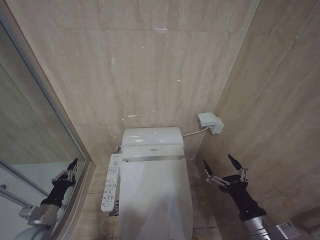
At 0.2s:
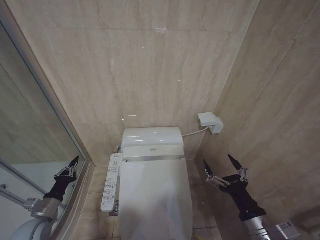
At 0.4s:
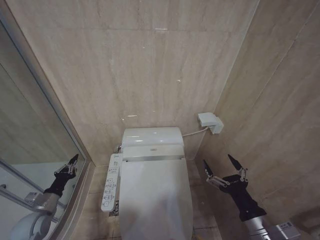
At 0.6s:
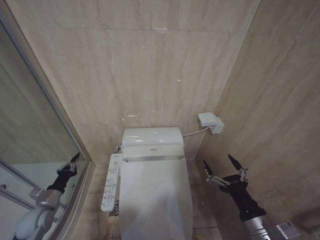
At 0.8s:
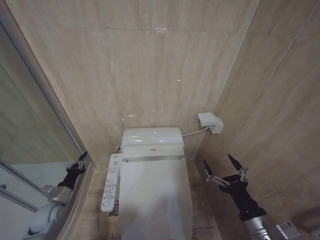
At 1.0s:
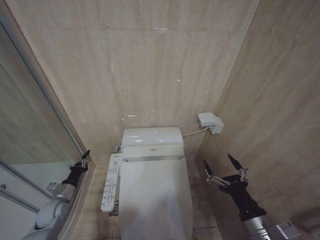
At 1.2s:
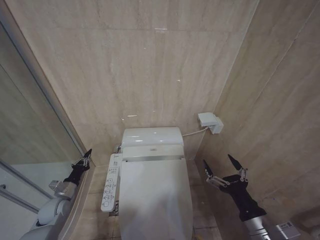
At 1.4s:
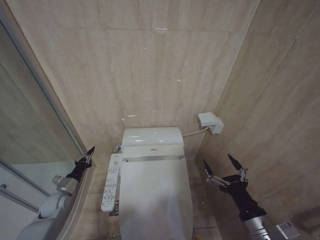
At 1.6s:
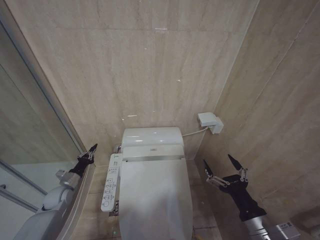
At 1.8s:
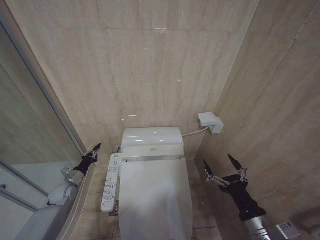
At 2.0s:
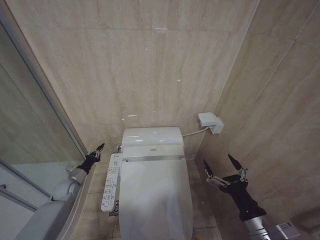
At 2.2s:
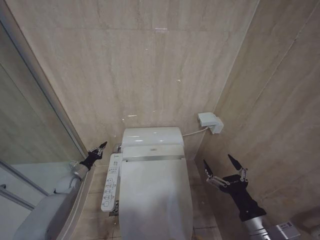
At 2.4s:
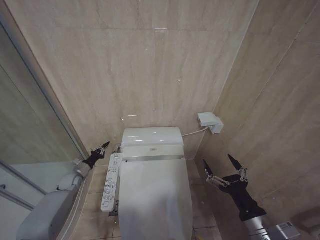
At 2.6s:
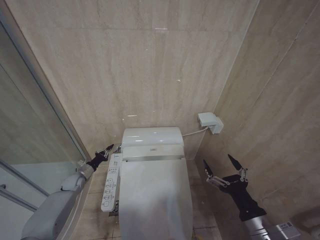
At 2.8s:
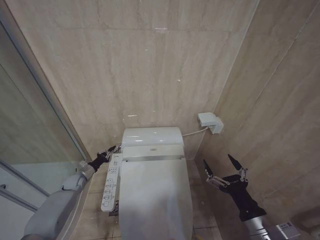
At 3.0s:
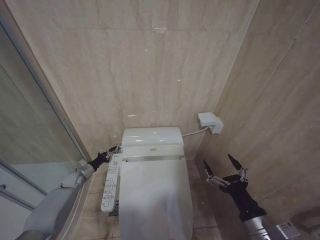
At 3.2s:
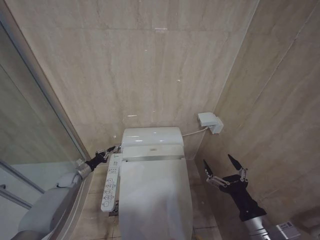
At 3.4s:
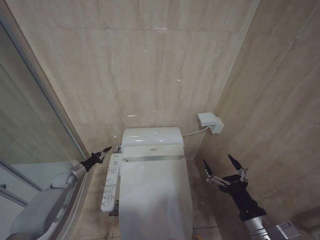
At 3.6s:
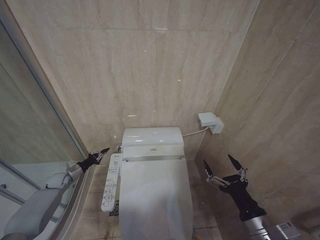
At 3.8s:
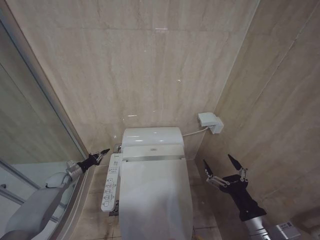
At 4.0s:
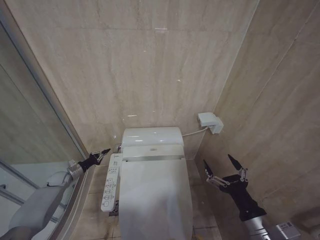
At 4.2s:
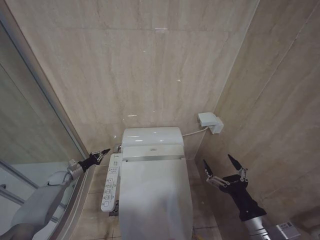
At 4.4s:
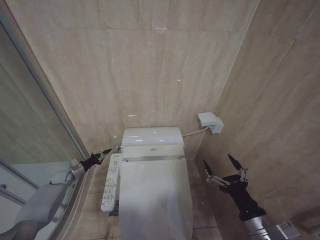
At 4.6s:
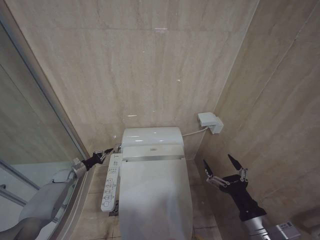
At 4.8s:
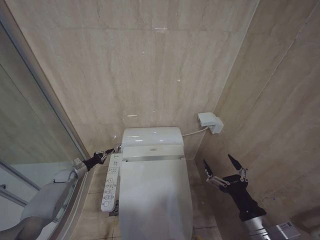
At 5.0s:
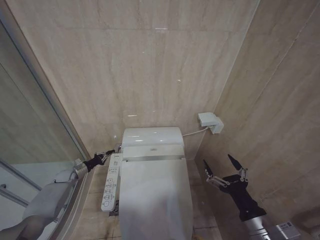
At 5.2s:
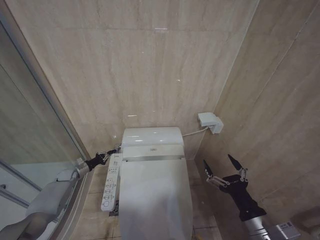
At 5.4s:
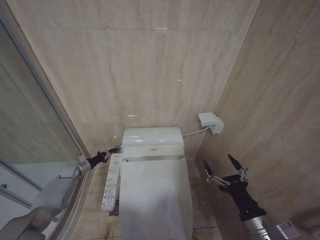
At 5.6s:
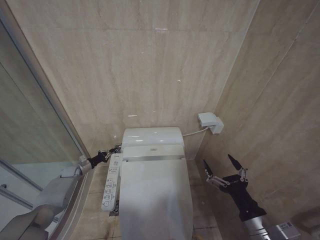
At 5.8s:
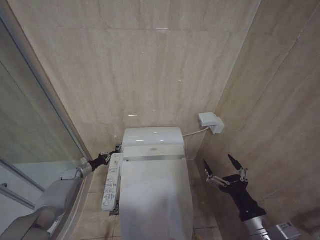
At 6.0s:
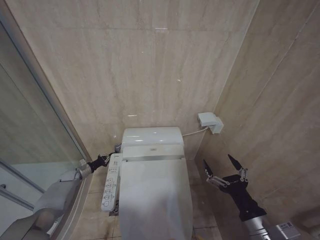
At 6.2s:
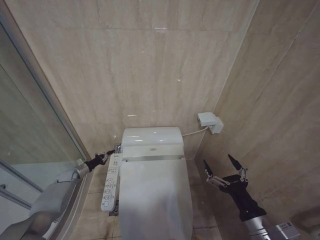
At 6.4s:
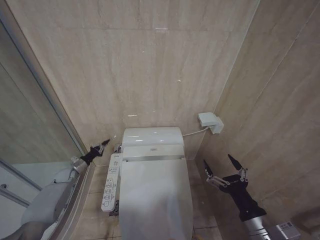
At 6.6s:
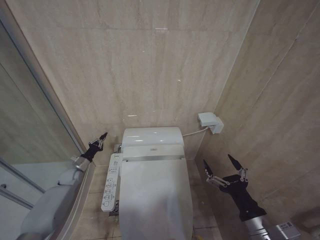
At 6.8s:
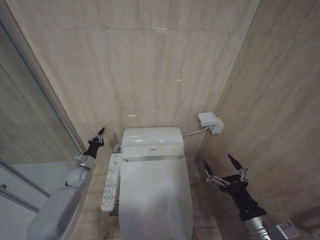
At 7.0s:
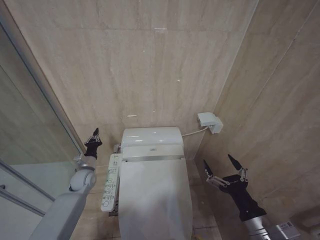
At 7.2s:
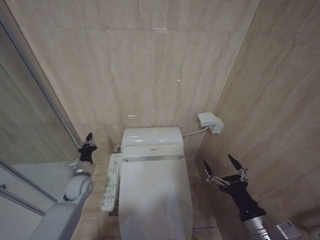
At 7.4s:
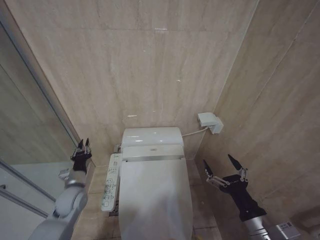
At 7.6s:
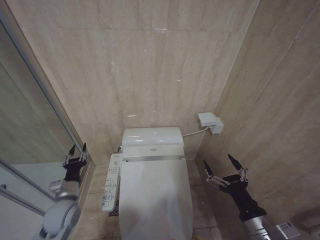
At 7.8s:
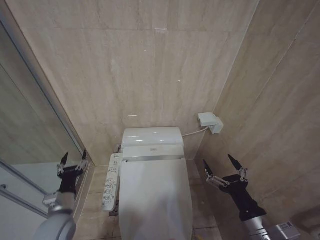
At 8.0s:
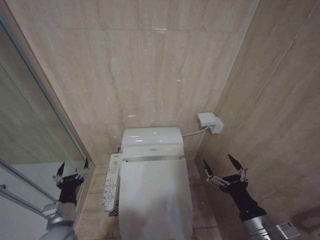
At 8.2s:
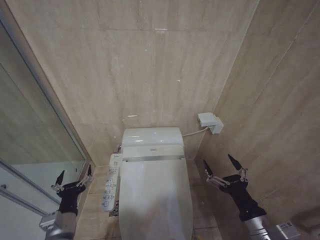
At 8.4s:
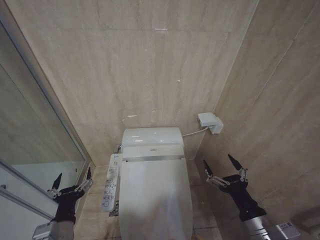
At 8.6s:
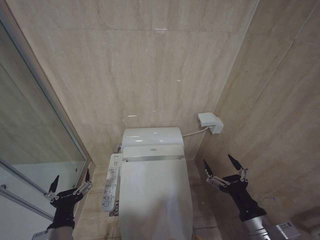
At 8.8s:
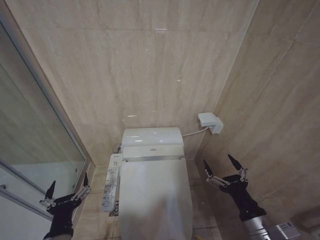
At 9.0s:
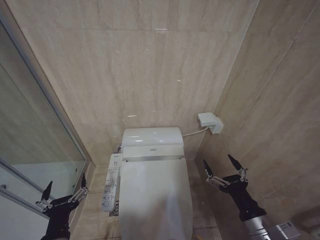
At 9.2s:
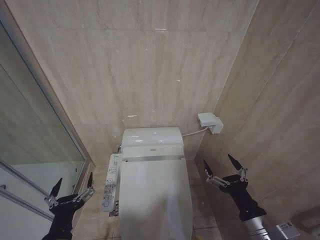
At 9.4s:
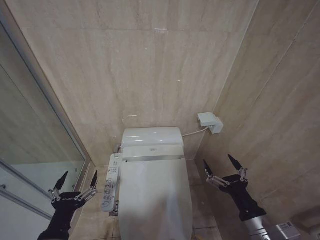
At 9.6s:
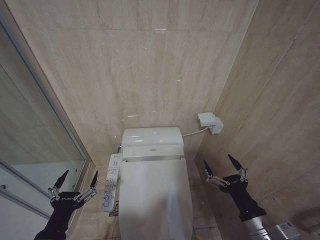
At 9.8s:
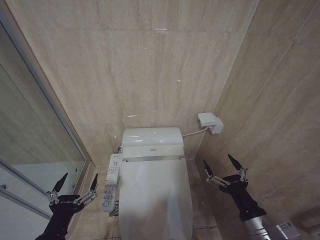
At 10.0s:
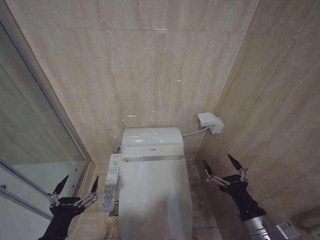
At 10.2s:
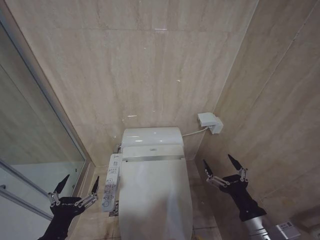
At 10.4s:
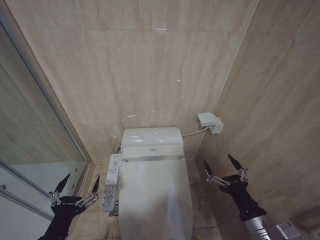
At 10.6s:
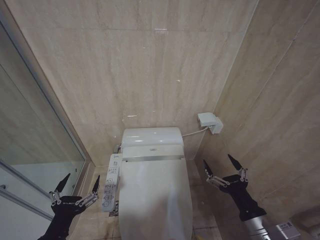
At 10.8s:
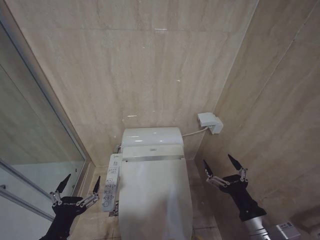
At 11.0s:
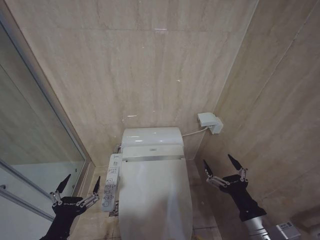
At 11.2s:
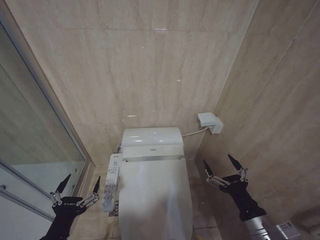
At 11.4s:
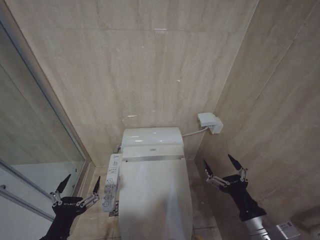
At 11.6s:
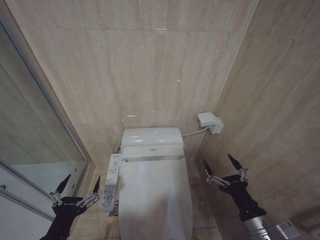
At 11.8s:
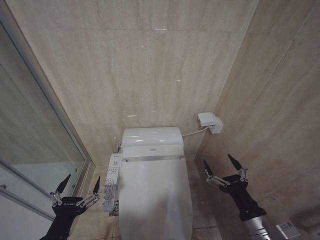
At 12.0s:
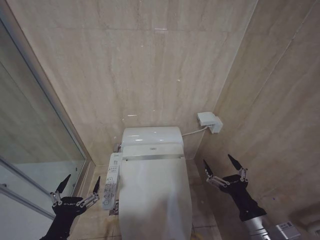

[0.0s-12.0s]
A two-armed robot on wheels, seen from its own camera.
Task of the whole recording: Open the toilet lid, clean the toilet bowl with a toilet brush, close the toilet lid, and flush.
0.0s to 1.6s: The left gripper travels forward by some 15 cm.
1.6s to 3.0s: The left gripper shifts some 10 cm forward.
3.0s to 4.4s: The left gripper moves to the left, roughly 5 cm.
4.4s to 6.0s: The grippers move only a little.
6.0s to 7.6s: The left gripper travels backward, to the right and upward by approximately 25 cm.
7.6s to 9.0s: The left gripper travels backward by some 20 cm, and opens up.
9.0s to 10.4s: The left gripper ends up about 5 cm from where it was.
10.4s to 12.0s: Neither gripper changes place.

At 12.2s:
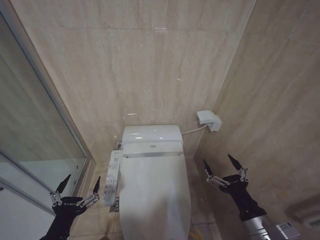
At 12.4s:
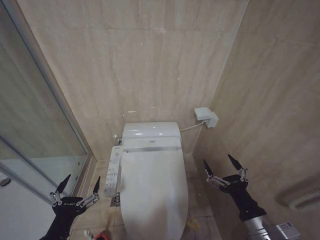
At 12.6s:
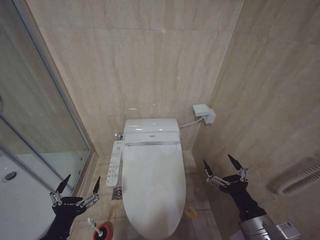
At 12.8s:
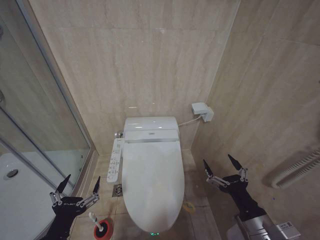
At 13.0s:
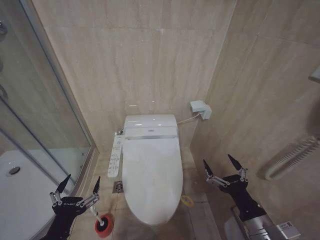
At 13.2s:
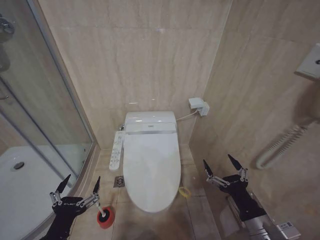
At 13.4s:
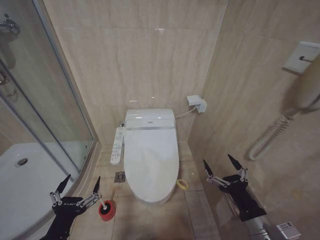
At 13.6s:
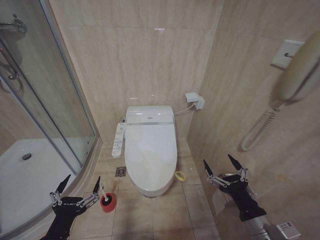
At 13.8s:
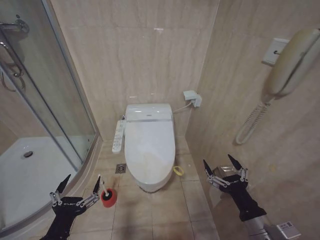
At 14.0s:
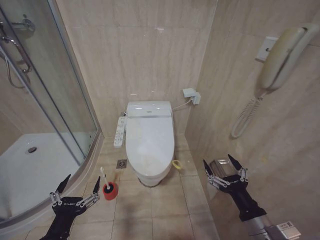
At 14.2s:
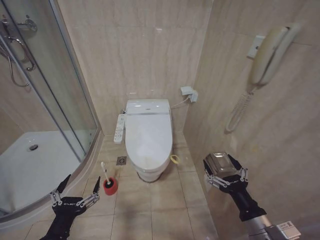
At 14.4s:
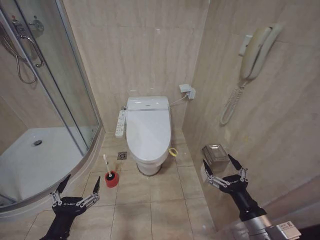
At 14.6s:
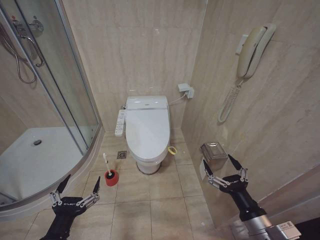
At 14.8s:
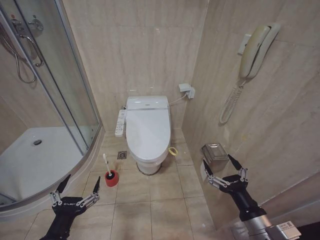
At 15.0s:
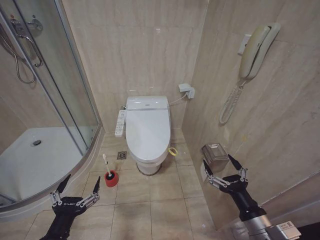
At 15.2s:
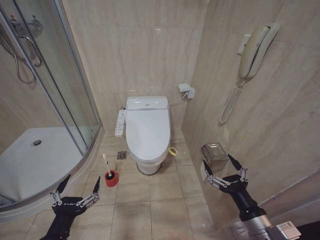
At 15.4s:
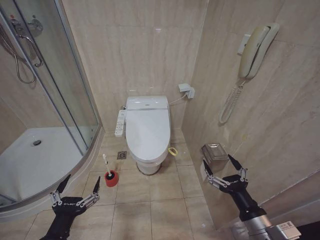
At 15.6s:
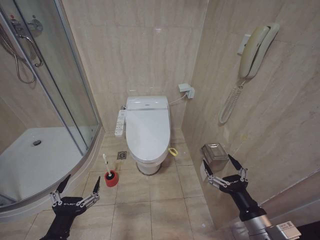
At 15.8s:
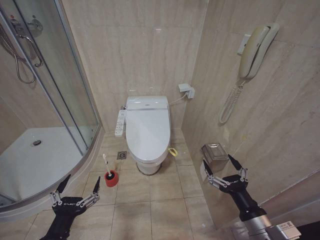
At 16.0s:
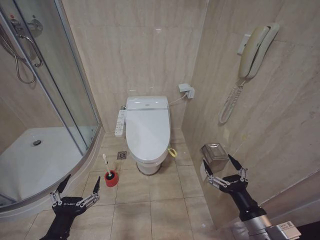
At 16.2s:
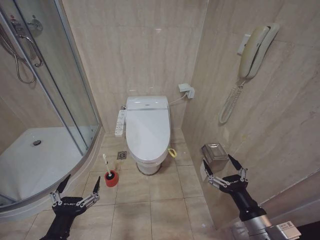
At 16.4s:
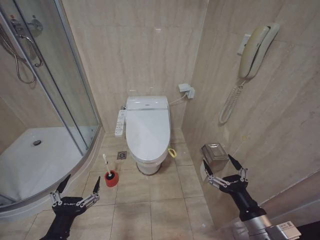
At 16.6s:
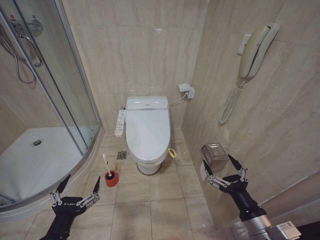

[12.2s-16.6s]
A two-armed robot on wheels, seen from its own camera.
Task of the whole recording: Open the toilet lid, clean the toilet bowl with a toilet brush, close the toilet lid, and flush.
15.2s to 16.6s: Neither gripper changes place.

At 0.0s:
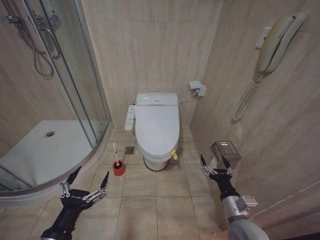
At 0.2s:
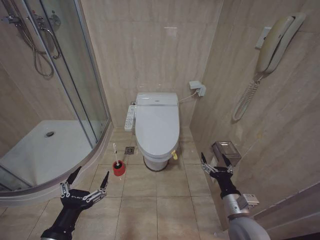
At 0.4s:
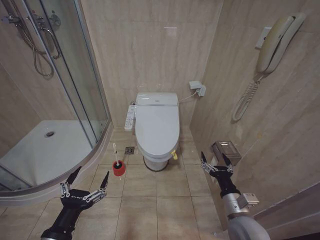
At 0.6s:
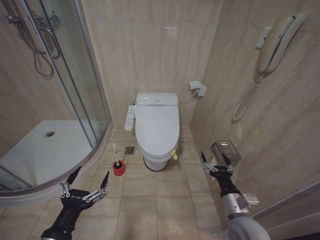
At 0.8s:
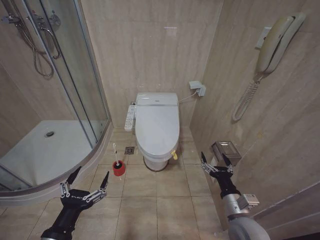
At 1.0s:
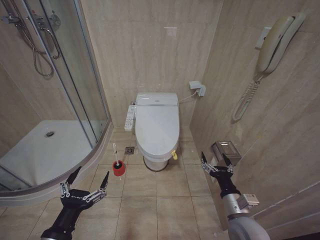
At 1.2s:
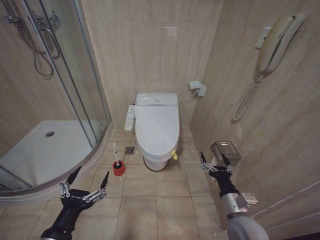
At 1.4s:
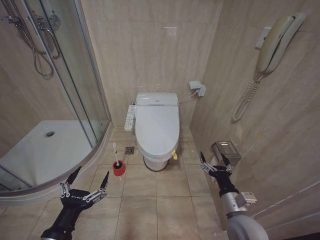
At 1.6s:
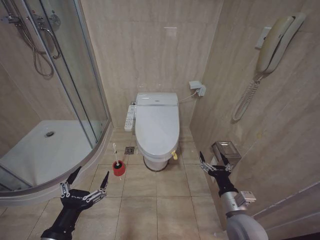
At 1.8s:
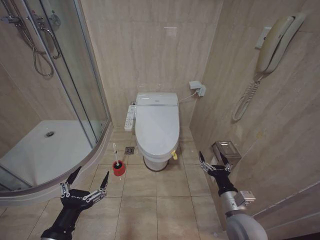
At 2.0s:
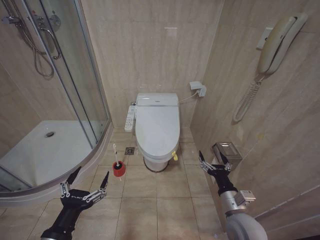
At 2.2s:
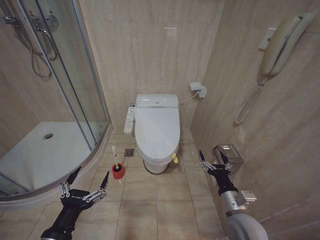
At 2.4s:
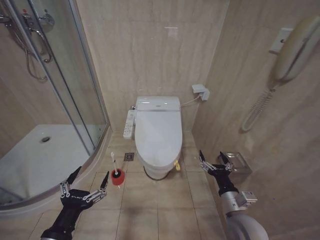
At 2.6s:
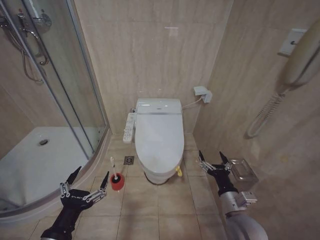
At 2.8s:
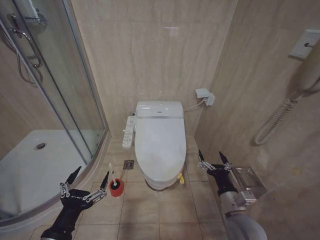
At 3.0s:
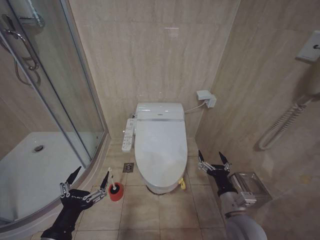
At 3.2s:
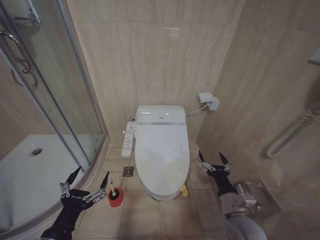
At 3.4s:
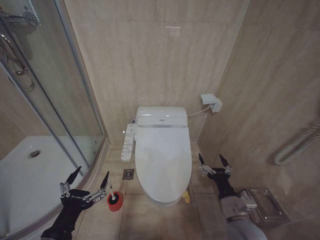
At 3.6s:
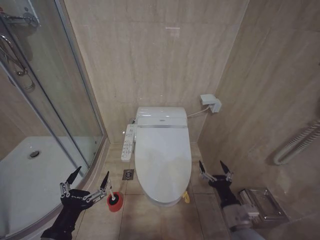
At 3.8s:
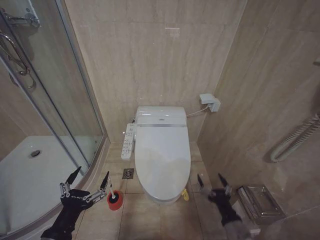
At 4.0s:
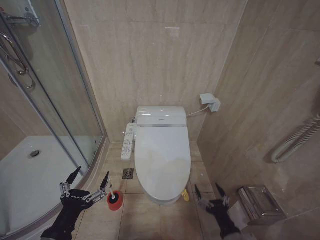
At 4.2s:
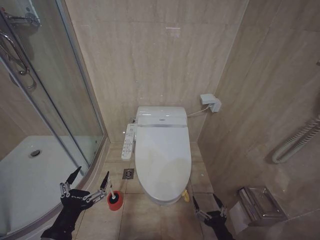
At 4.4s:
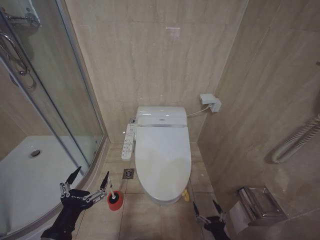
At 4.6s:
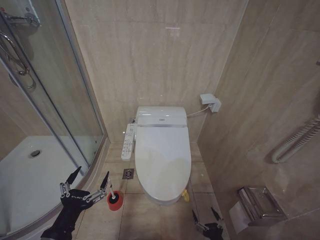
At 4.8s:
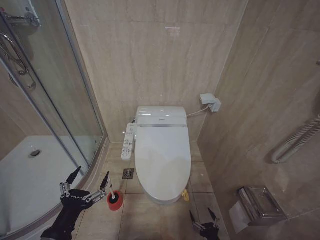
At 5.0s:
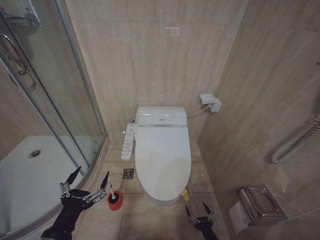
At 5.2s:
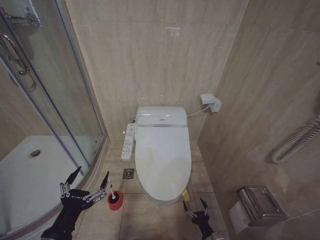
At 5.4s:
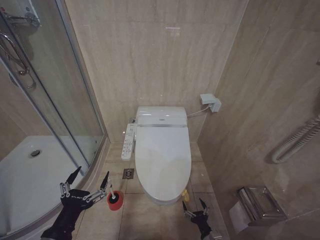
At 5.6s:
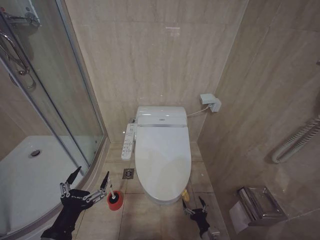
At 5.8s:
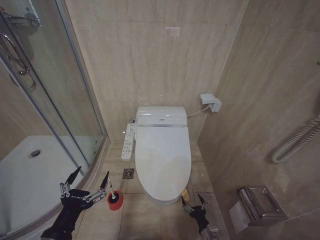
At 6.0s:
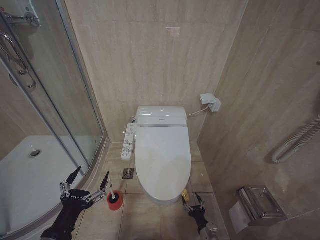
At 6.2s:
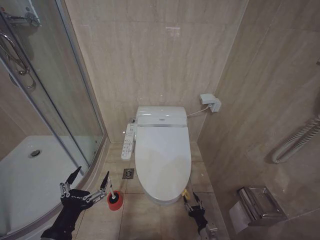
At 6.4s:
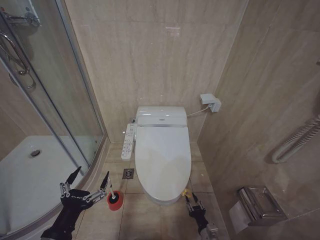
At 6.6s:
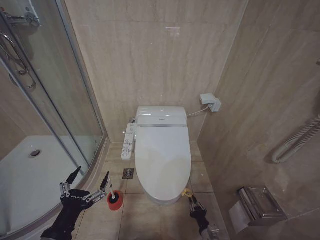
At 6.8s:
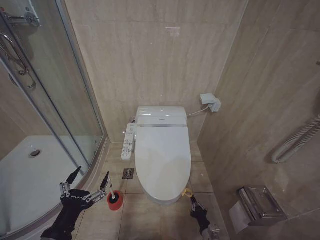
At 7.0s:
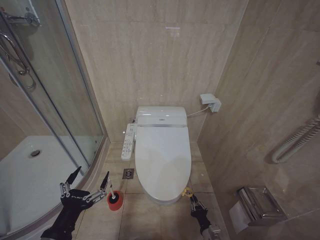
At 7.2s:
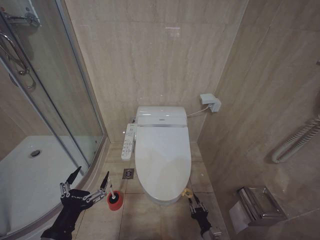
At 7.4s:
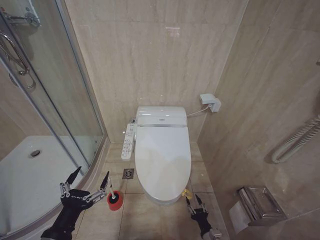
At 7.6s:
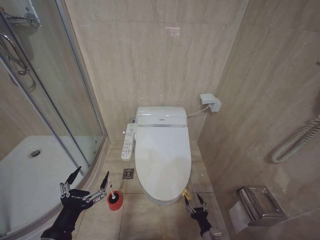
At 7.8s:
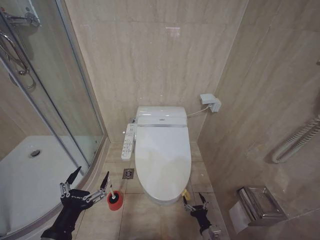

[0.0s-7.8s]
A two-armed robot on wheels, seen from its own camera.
Task of the whole recording: Open the toilet lid, clean the toilet bowl with a toilet brush, close the toilet lid, and flush.
3.2s to 4.6s: The right gripper goes roughly 20 cm downward and backward.
4.6s to 6.2s: The right gripper goes roughly 10 cm forward and downward.
